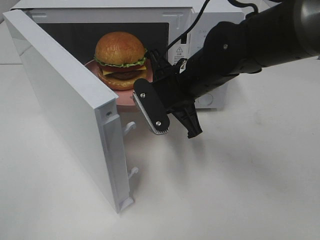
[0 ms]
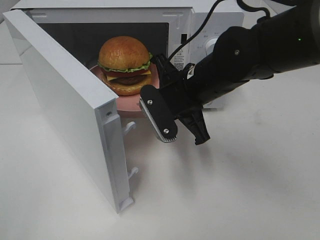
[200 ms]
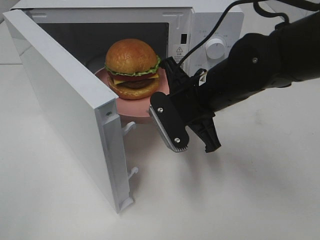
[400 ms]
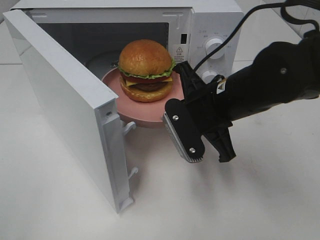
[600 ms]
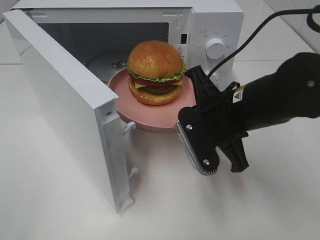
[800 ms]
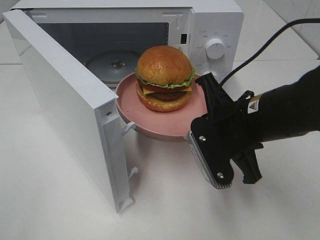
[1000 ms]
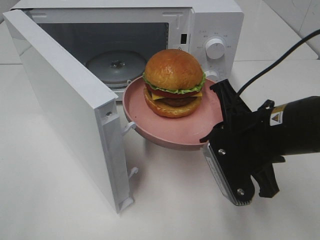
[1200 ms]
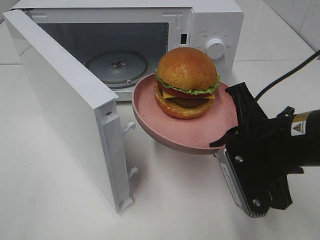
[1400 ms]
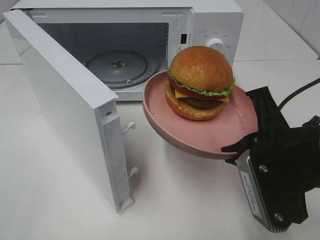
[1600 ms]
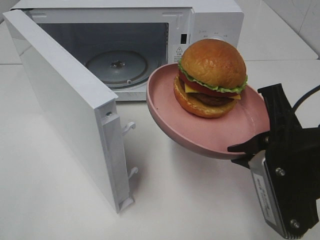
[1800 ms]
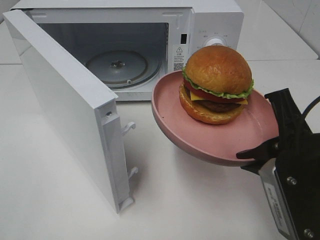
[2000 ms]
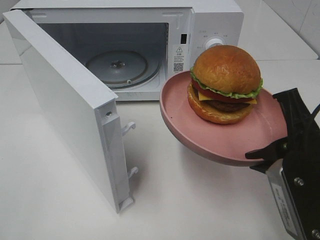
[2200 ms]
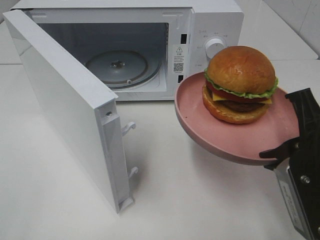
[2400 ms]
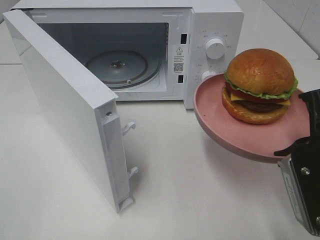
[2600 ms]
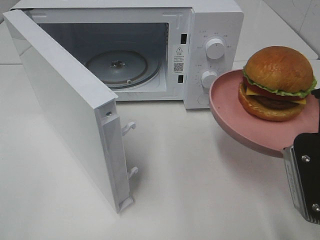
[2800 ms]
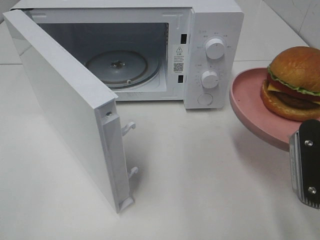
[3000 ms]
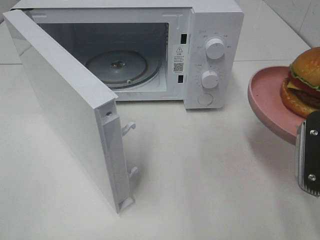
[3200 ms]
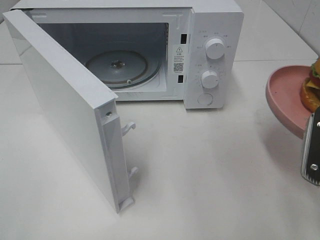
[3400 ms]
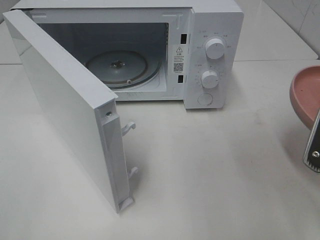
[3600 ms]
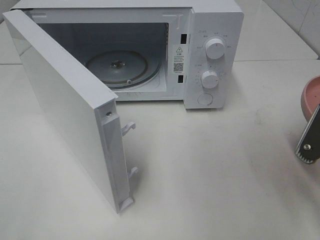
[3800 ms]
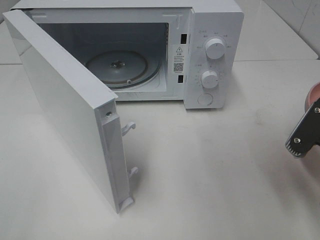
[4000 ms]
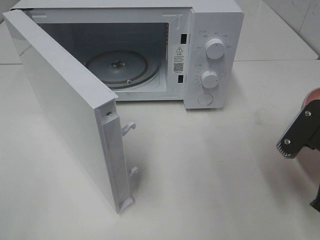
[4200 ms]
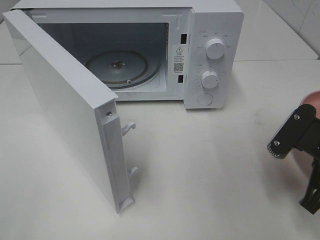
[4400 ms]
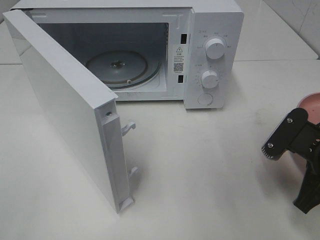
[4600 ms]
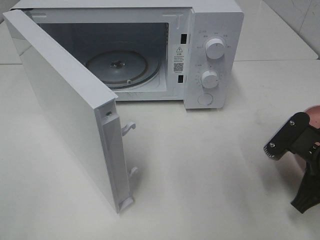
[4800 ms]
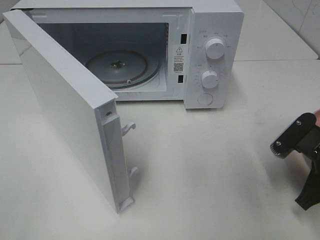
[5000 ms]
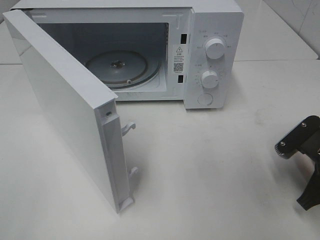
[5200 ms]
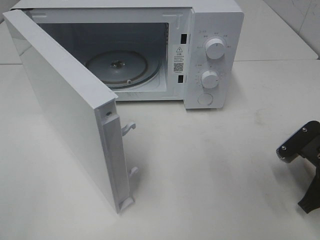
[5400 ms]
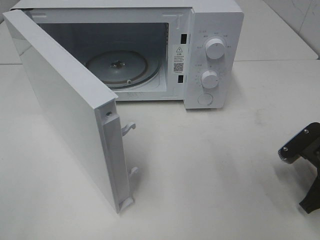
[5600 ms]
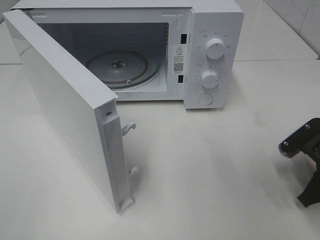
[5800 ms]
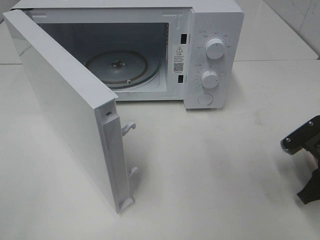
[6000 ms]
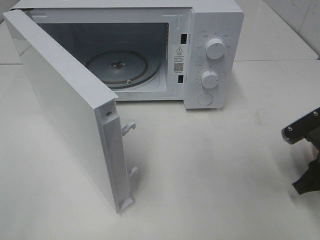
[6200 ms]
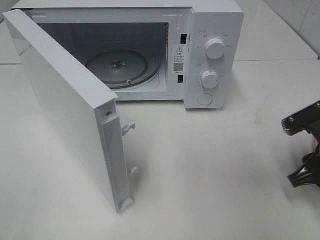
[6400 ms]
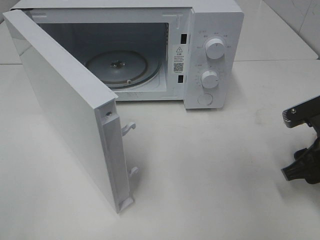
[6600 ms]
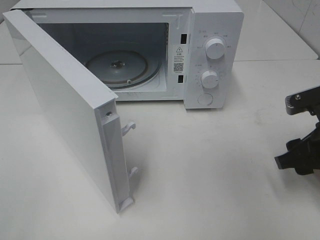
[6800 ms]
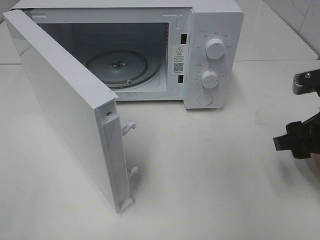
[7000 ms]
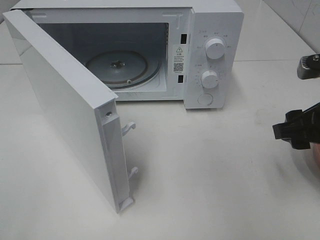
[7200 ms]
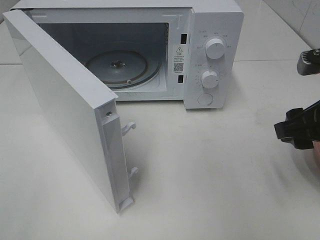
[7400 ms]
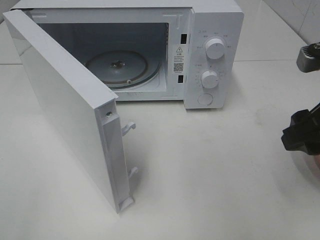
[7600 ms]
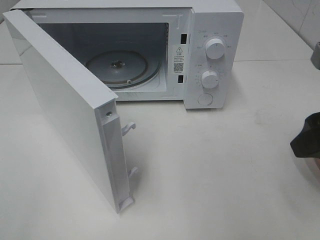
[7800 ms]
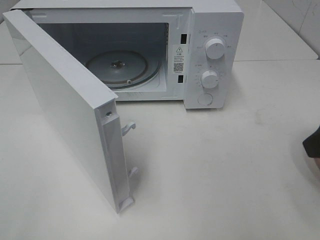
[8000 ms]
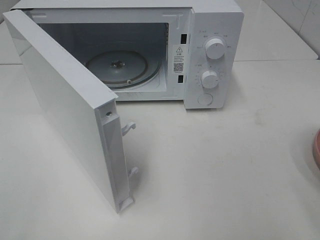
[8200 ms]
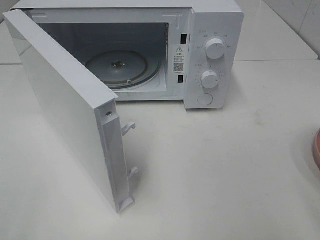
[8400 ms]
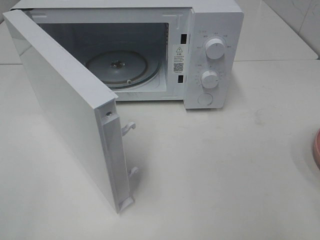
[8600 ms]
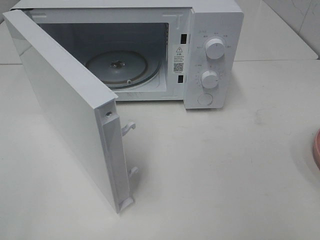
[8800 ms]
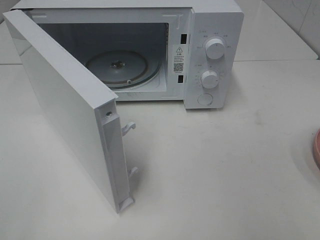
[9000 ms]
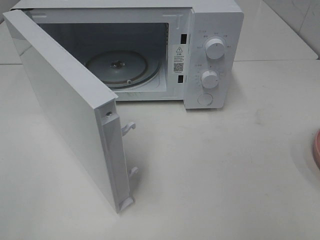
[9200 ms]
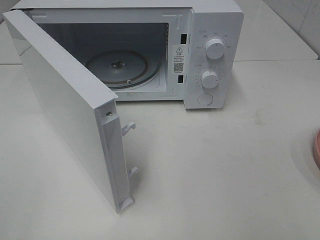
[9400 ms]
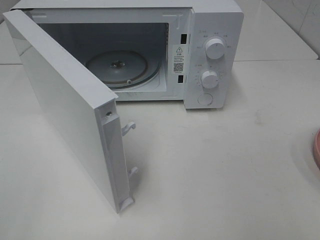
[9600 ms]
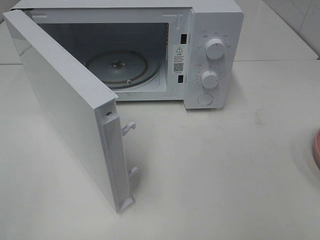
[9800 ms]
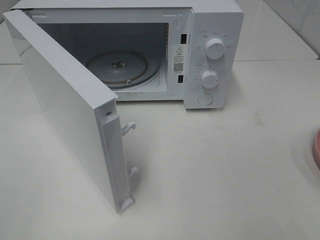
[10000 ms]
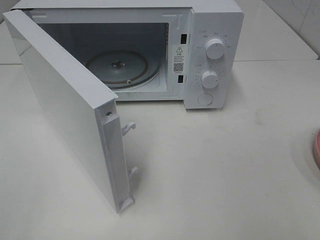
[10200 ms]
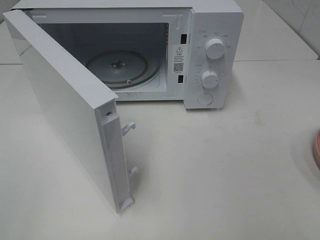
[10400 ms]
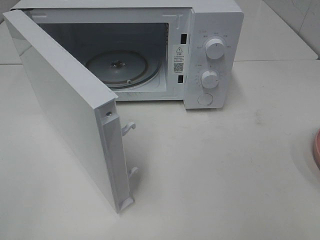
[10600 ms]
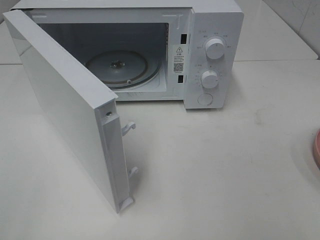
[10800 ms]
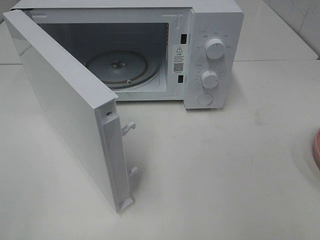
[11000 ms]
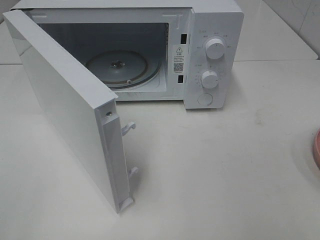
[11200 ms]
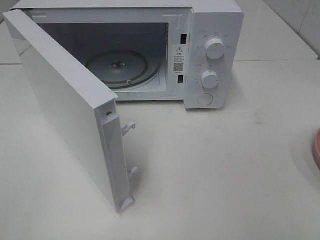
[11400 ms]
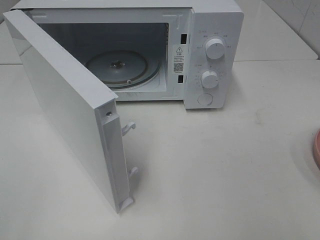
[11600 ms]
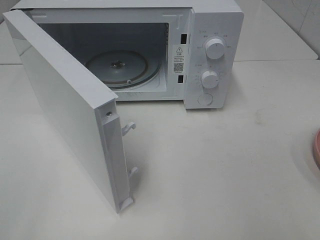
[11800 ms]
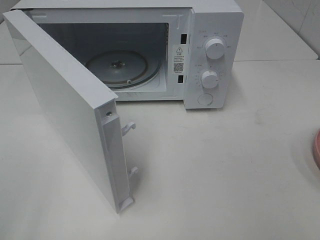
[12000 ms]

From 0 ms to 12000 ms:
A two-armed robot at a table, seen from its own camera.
Task of the whole recording: Heat the burger.
Step, from 0 ms to 6200 ms: Right hand: place the plate on the table.
From 0 ms to 1600 ms: The right gripper shifts about 20 cm backward and to the right.
From 1600 ms to 3000 ms: The right gripper travels to the right by approximately 5 cm.
From 3000 ms to 4400 ms: The right gripper is displaced downward by some 5 cm.
From 4400 ms to 6000 ms: The right gripper heads downward, covering some 5 cm, and opens its fingers.
From 6000 ms to 7600 ms: The right gripper heads upward, covering roughly 15 cm.
From 7600 ms to 9000 ms: The right gripper goes some 15 cm backward.

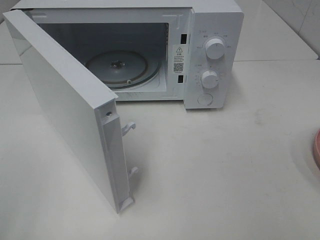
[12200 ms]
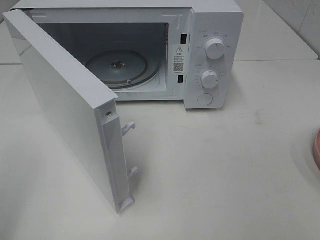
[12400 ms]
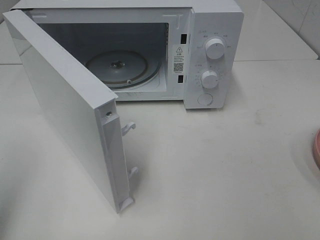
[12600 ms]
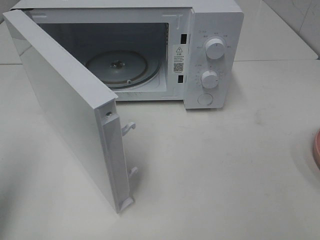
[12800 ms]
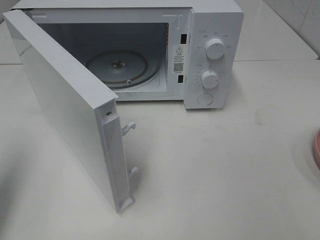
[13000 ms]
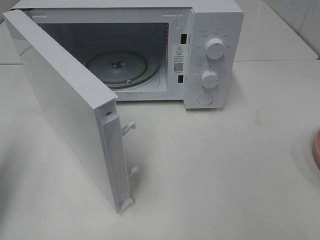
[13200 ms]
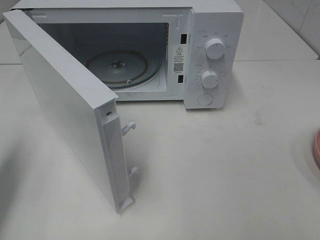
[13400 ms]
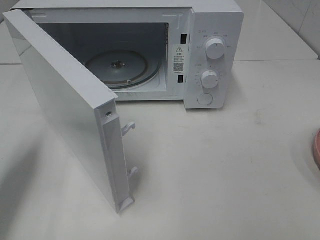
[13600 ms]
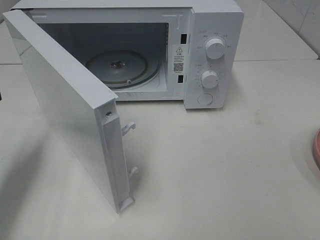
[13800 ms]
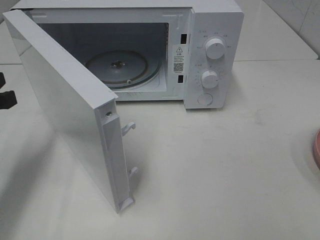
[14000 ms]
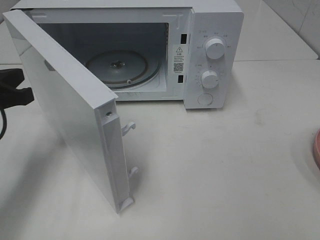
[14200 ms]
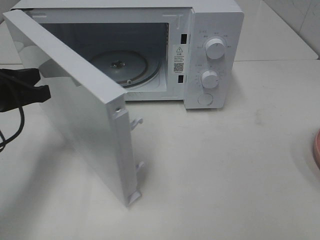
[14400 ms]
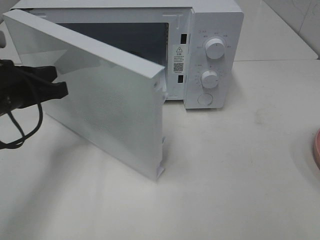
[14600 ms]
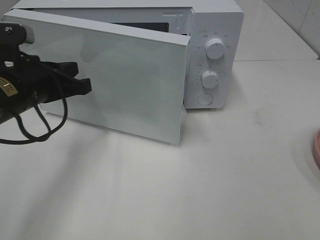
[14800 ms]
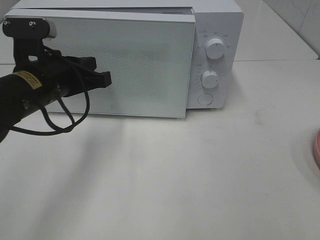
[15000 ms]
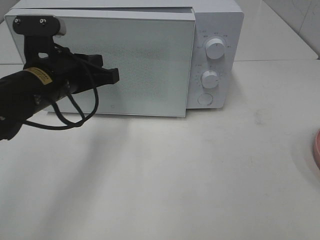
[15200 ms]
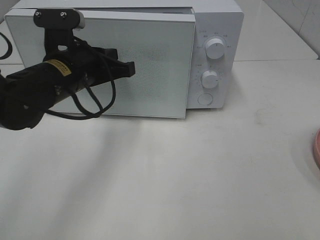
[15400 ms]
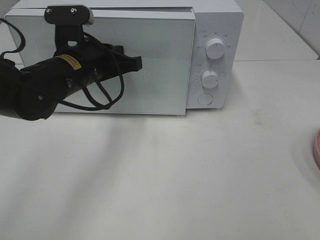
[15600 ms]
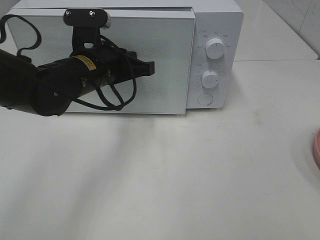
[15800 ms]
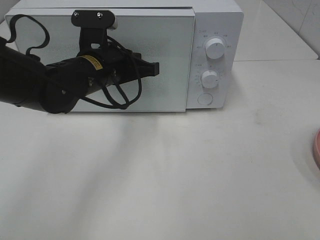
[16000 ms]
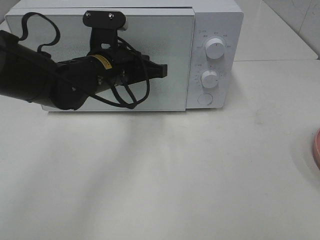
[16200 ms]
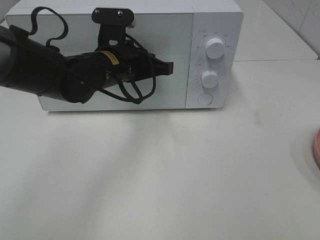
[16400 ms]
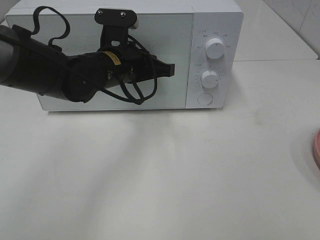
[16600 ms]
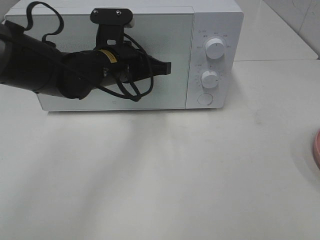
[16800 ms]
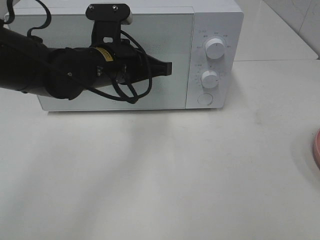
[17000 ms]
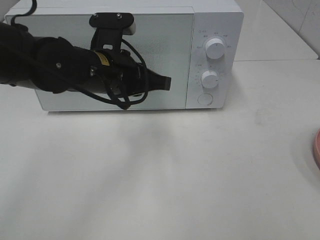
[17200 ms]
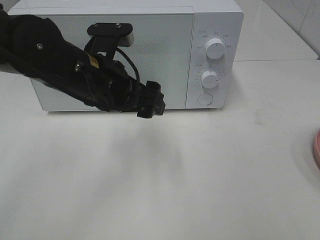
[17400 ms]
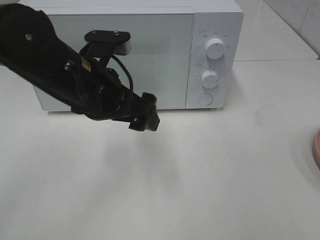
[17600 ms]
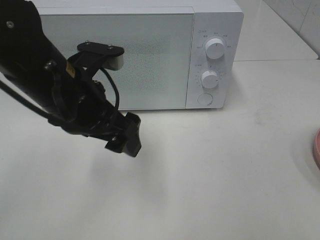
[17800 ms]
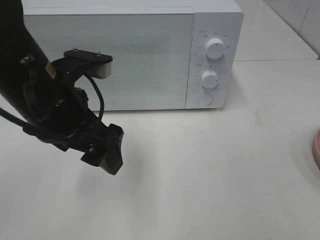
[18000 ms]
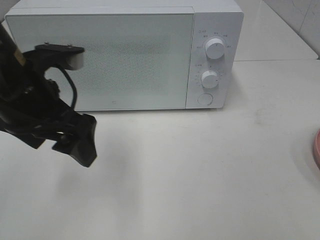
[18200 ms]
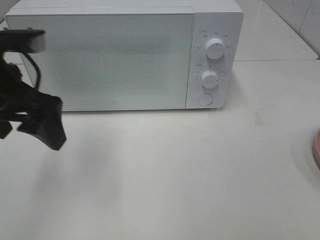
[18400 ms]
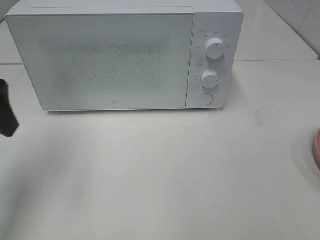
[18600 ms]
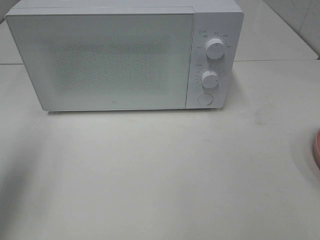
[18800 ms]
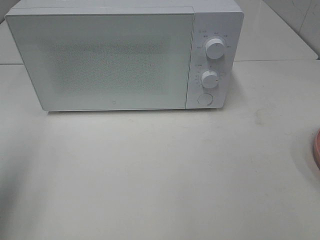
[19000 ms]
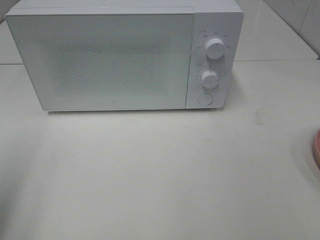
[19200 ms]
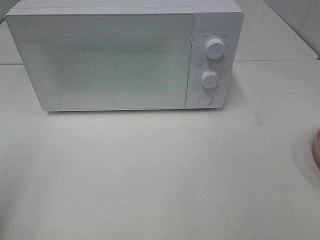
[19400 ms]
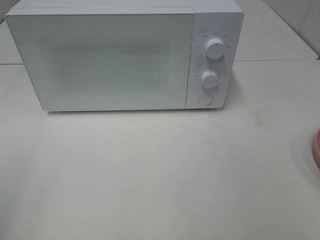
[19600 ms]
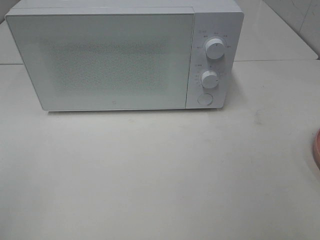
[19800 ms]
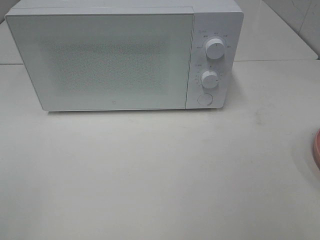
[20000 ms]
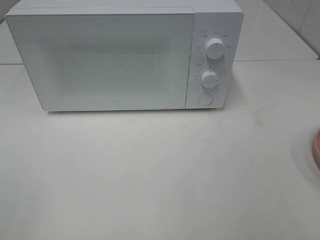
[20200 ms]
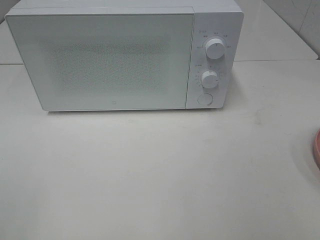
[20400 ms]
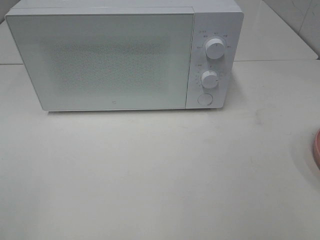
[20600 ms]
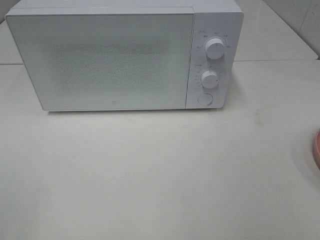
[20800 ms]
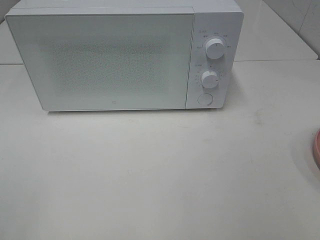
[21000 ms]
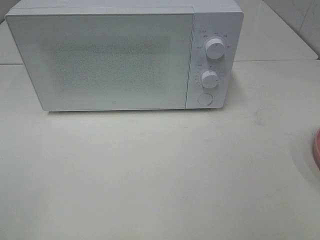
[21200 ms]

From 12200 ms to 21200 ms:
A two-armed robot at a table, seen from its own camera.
Task of the whole recording: Heat the burger.
Step, from 12200 ms to 17000 ms: Left hand: close the microwave door.
From 12200 ms to 13800 ms: The left gripper goes approximately 20 cm forward and downward, and closes up.
From 13800 ms to 15200 ms: The left gripper is displaced to the right and forward by about 15 cm.
From 15200 ms to 16600 ms: The left gripper travels to the right and forward by about 10 cm.
From 16600 ms to 18200 ms: The left gripper goes roughly 15 cm backward, to the left and upward, and opens.
From 18200 ms to 19800 ms: The left gripper travels backward and to the left by roughly 25 cm.

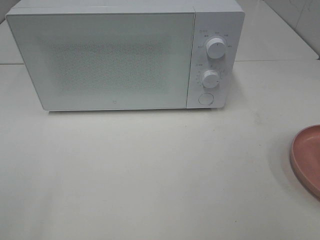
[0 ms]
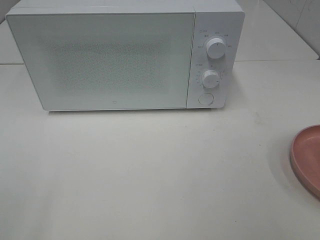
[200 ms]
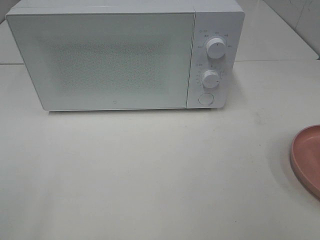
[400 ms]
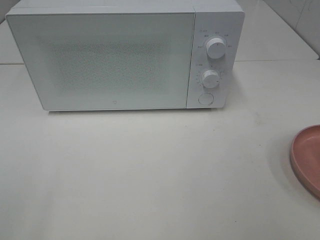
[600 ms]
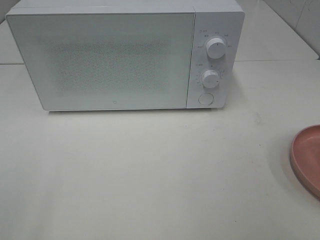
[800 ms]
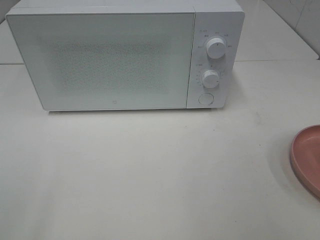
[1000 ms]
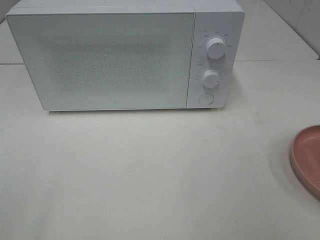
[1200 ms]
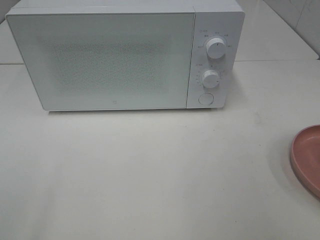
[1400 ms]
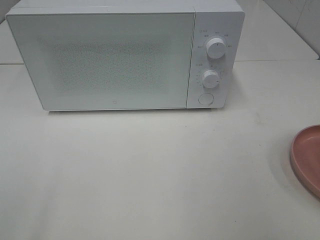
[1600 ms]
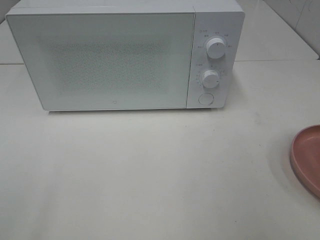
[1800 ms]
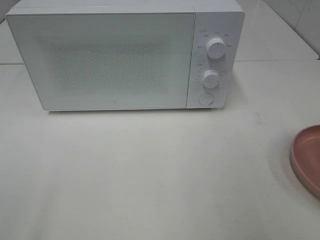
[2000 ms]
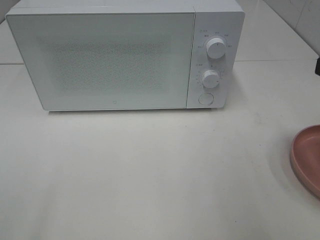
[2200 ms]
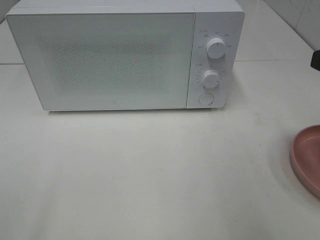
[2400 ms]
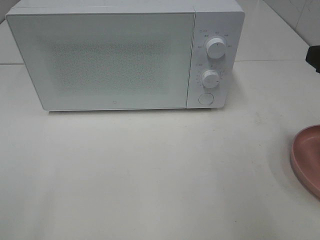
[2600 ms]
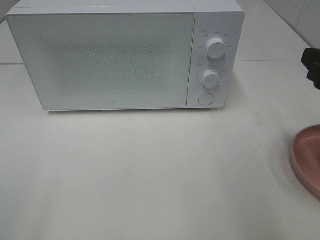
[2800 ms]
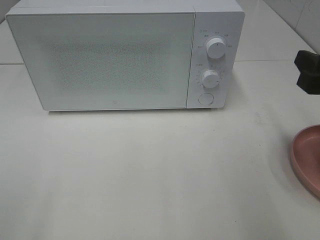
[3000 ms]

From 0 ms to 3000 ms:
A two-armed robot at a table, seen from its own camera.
Task of the whole recording: Heat the burger.
From 1600 ms to 3000 ms: The right gripper moves forward and downward, some 15 cm.
